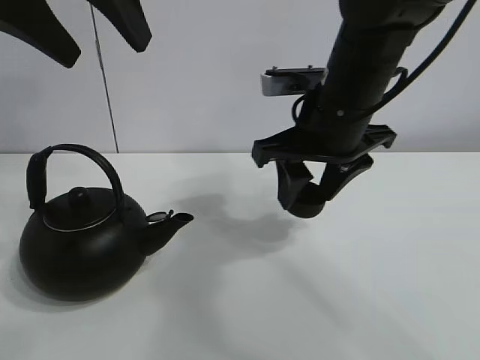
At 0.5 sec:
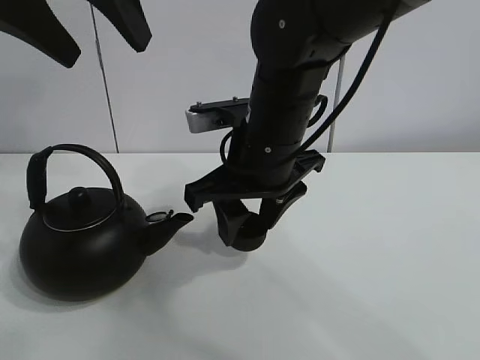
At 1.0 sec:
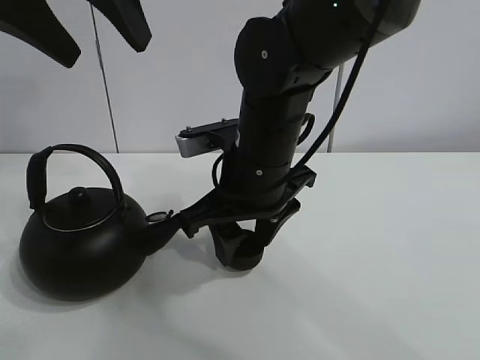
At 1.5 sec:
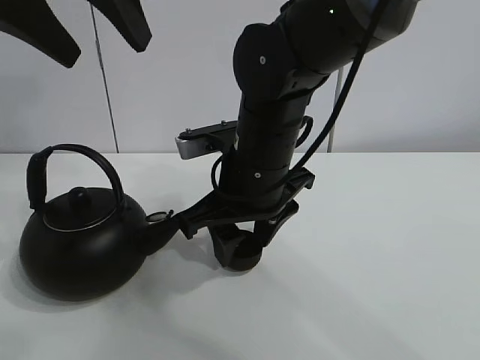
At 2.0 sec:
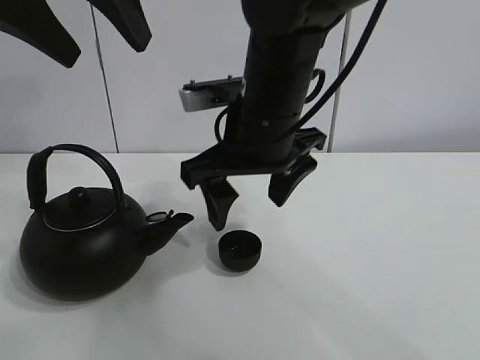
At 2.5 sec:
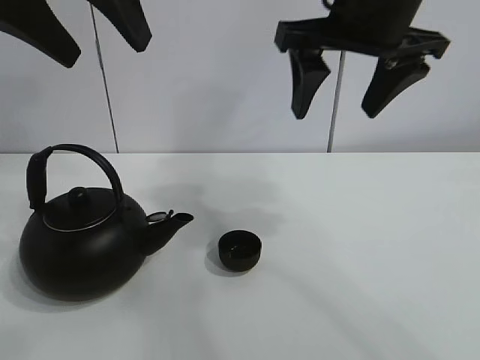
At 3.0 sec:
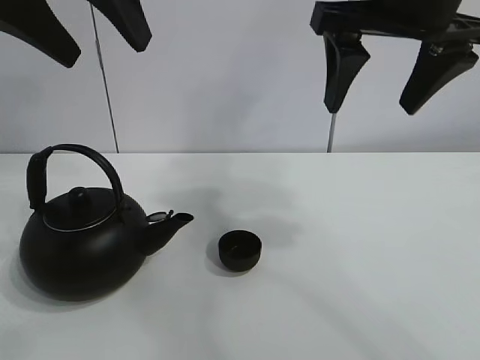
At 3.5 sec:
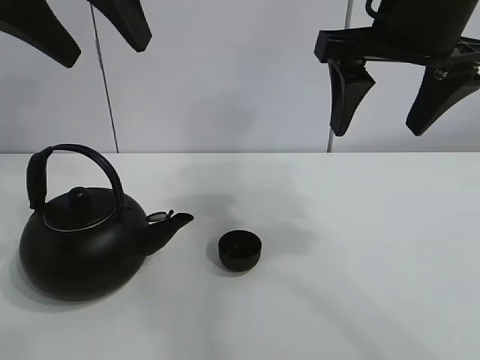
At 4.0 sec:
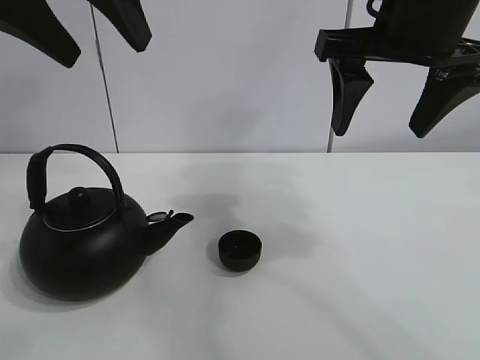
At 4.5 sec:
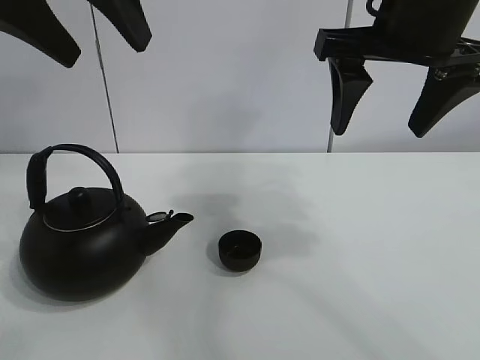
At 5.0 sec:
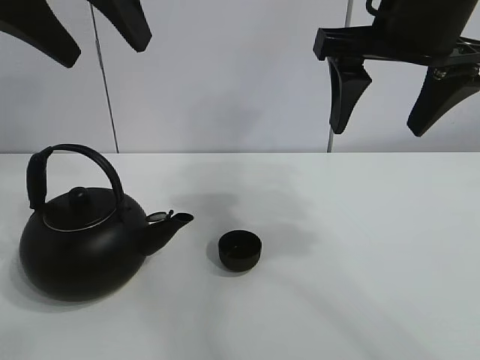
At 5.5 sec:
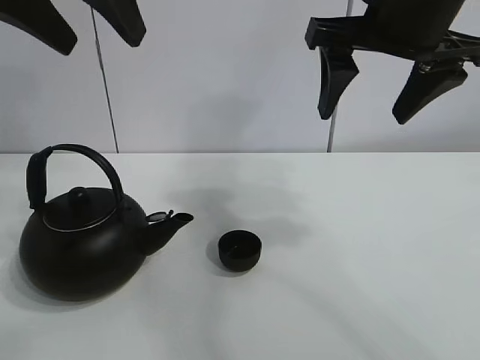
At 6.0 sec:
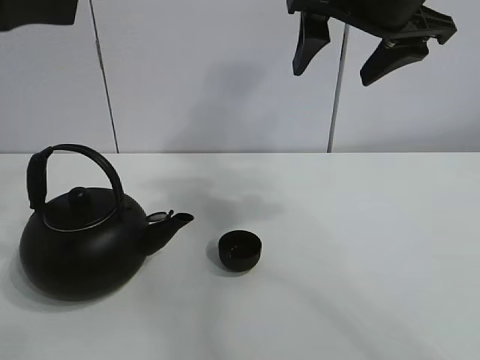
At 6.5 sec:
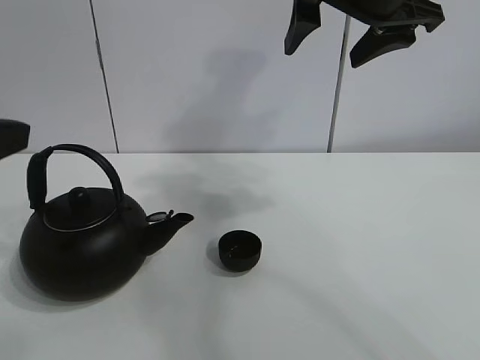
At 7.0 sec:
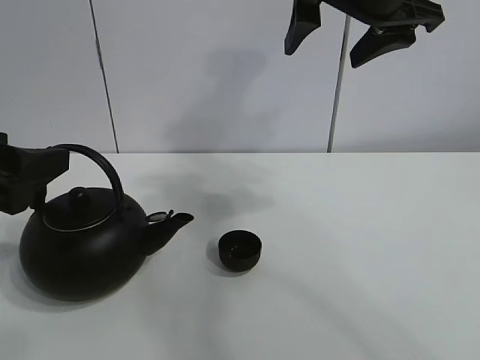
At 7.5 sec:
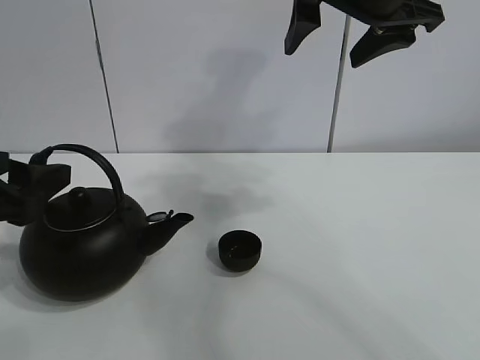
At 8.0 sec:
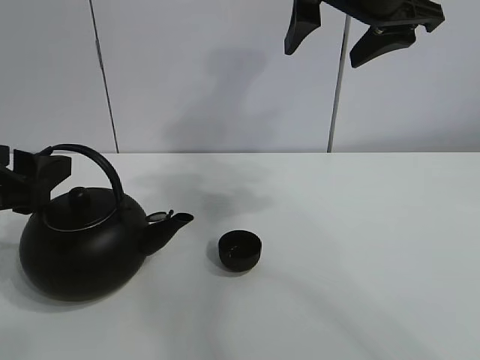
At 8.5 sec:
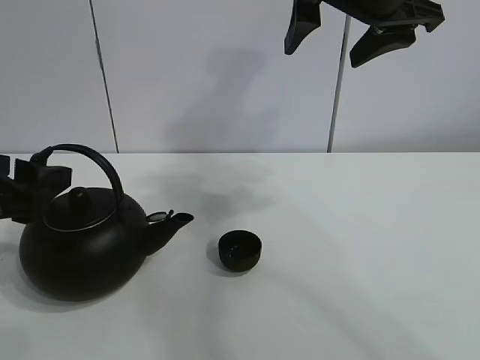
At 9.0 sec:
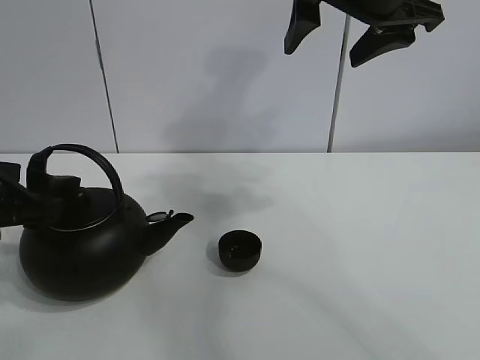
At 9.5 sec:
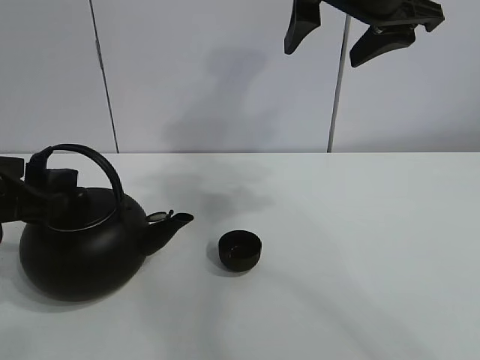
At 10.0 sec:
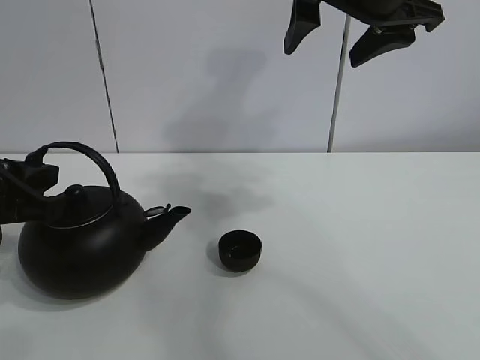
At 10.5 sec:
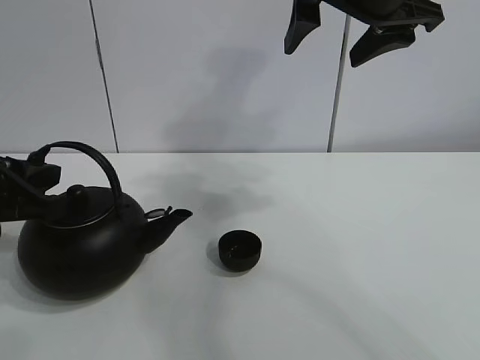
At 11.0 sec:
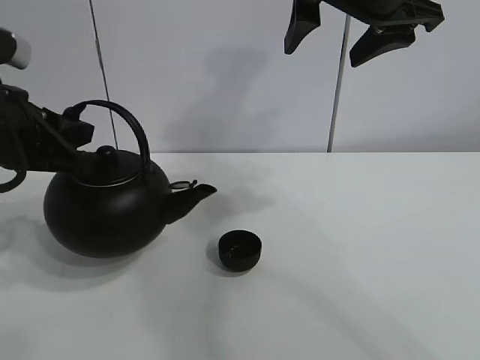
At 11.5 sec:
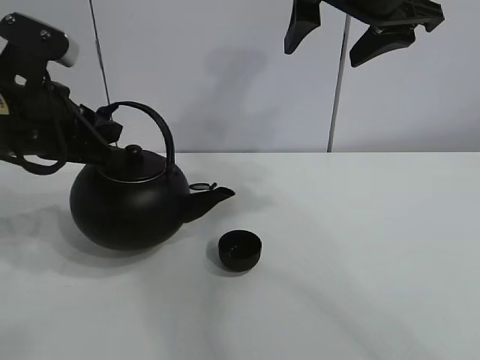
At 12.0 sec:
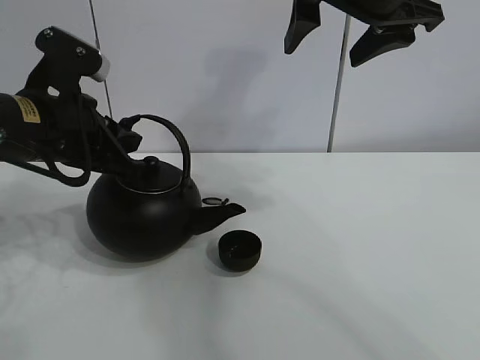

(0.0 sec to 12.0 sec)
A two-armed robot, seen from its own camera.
Task of the whole recording: pour tea into the teacup.
Step, 0.0 sec - 1.5 sec: Place the teacup in the center of view with the right gripper.
Step, 2.0 sec - 10.0 sec: Pick up the teapot with the left gripper.
0.0 sec - 2.0 sec: The right gripper is displaced to the left by about 10 cm, and opens up.
2.0 sec - 4.0 sec: The right gripper is displaced to the right and upward by roughly 15 cm.
4.0 sec - 6.0 sec: The left gripper is displaced backward and to the left by approximately 10 cm.
6.0 sec - 8.0 sec: The left gripper heads downward, covering roughly 15 cm.
8.0 sec - 10.0 sec: The left gripper closes.
10.0 sec - 12.0 sec: The left gripper moves forward and to the right, some 10 cm.

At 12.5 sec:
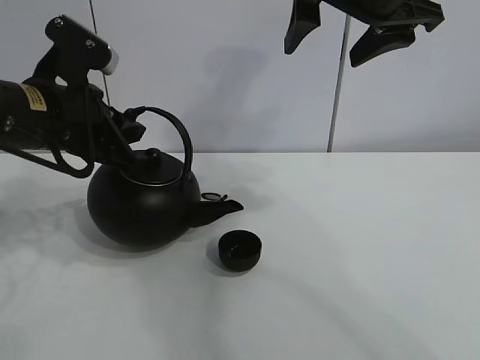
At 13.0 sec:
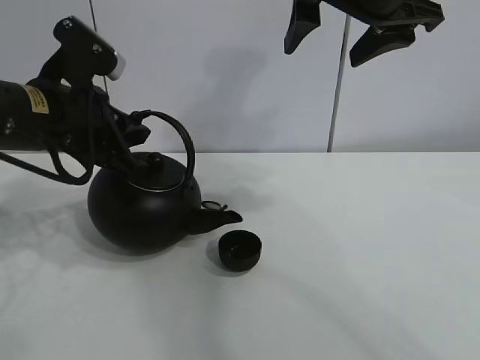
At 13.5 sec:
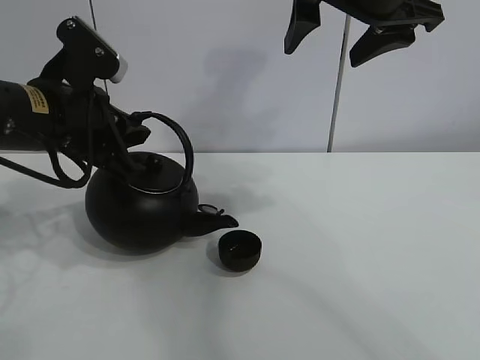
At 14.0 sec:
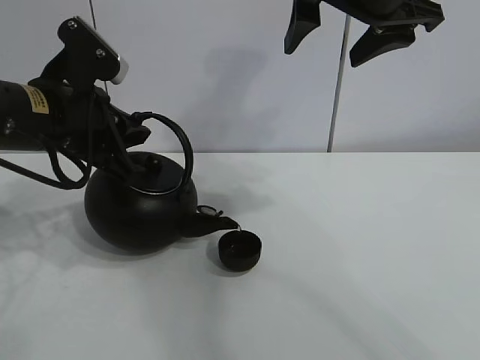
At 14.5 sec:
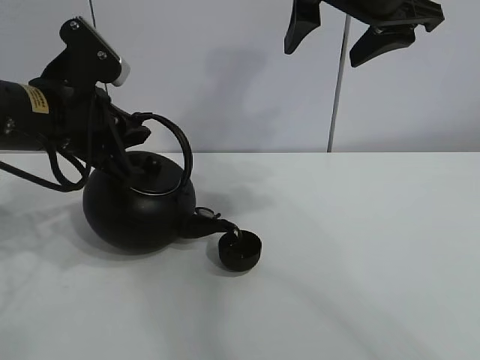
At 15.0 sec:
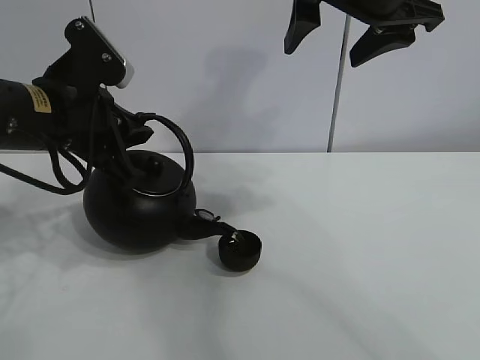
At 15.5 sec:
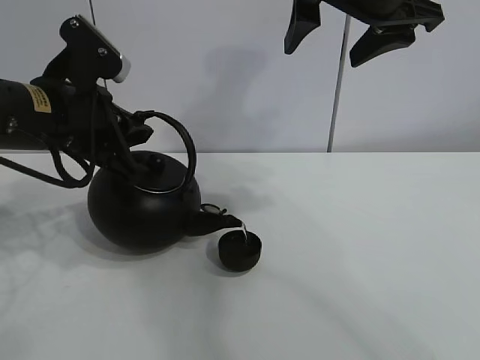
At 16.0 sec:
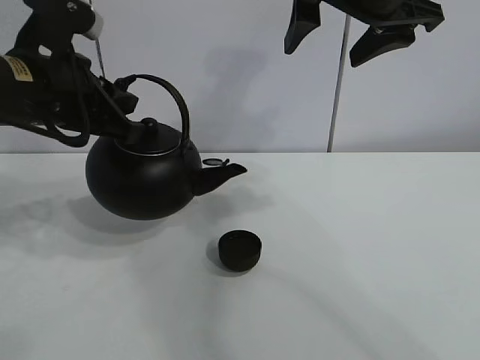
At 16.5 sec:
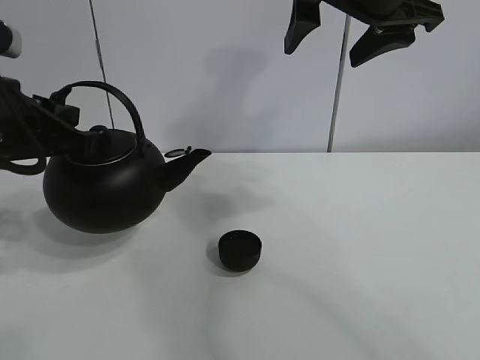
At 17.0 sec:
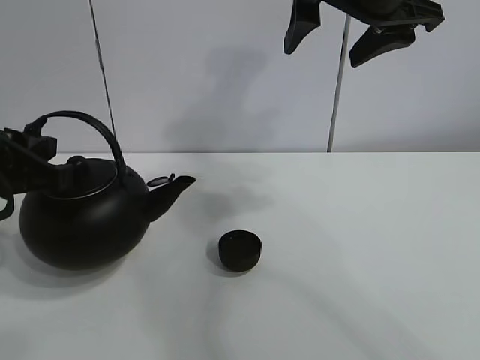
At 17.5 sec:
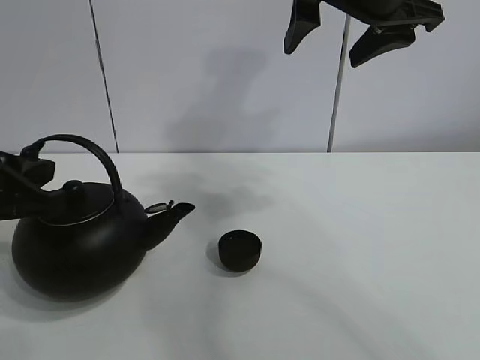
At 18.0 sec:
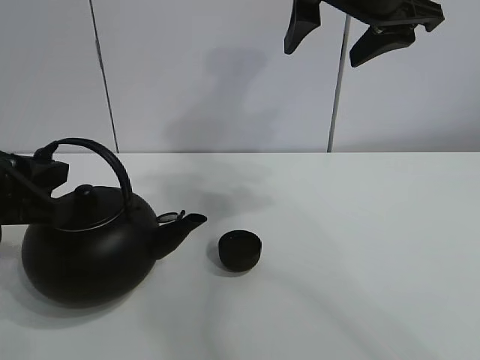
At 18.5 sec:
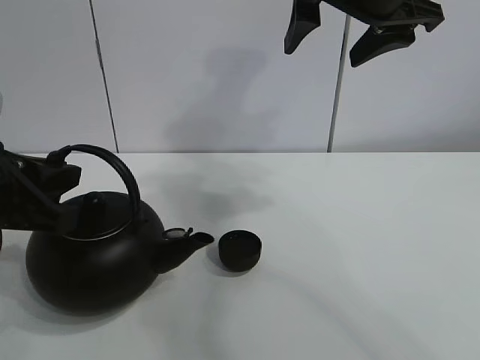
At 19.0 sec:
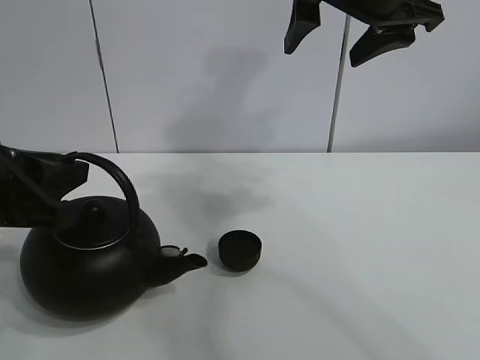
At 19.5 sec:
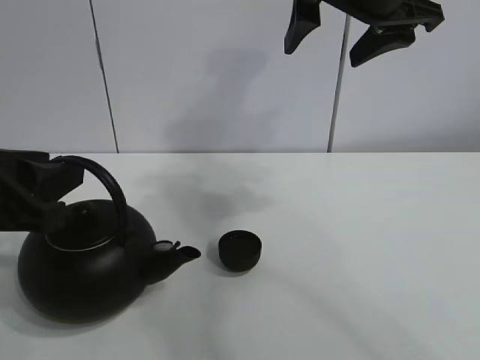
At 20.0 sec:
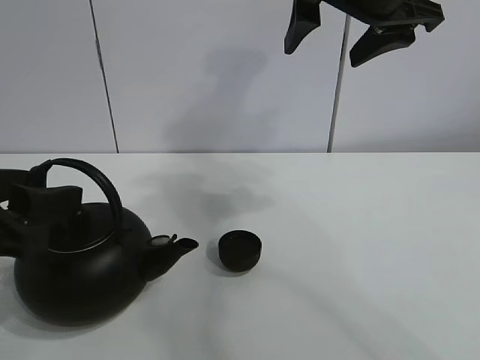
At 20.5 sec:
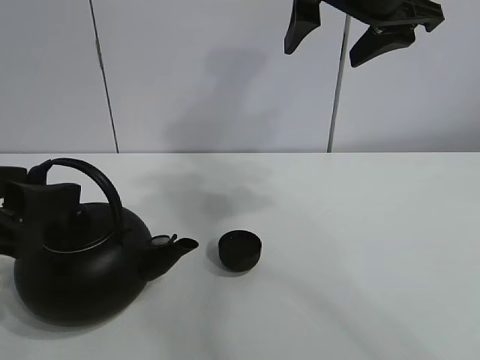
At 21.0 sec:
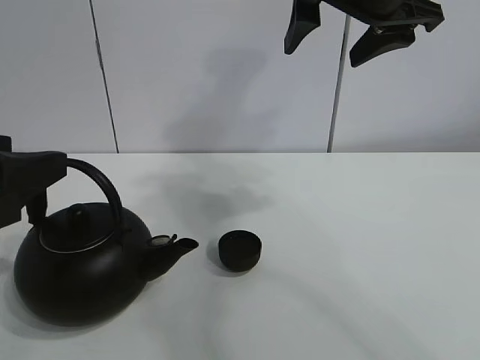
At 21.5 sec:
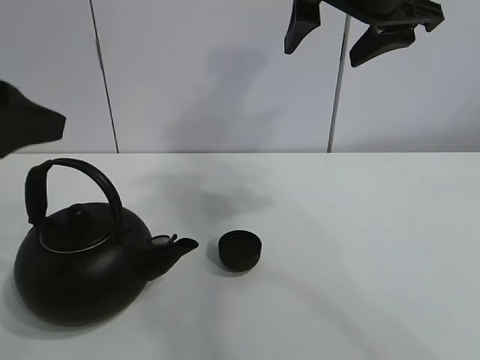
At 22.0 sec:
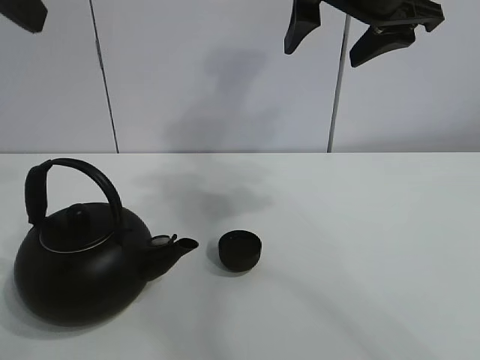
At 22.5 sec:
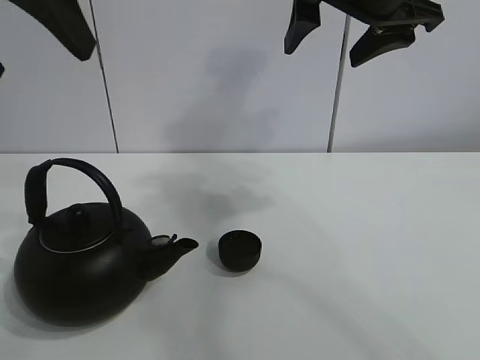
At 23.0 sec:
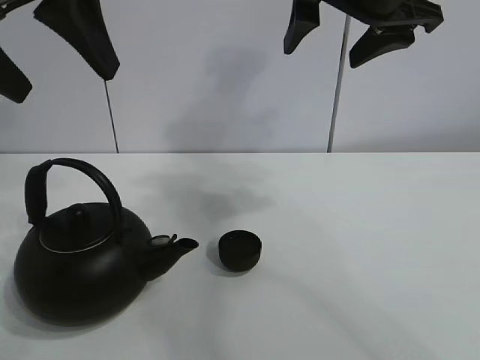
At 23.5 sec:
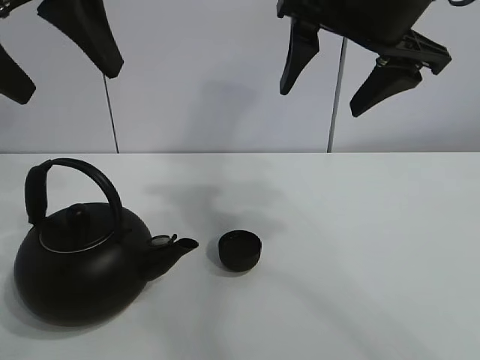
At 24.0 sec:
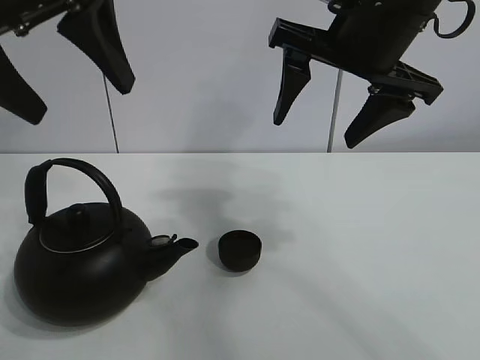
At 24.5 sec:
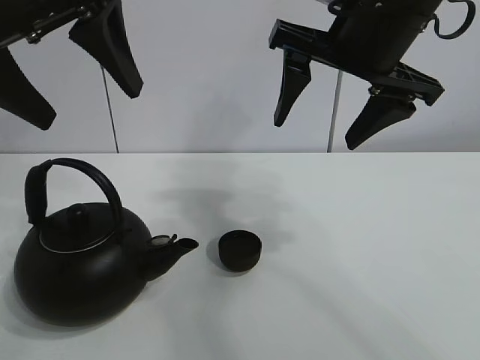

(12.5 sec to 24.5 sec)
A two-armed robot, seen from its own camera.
Task of the whole recording: pour tea into the teacup.
Step, 12.5 sec - 15.5 sec: Pour tea into the teacup with the left gripper.
12.5 sec - 14.5 sec: The grippers make only small movements.
14.5 sec - 16.5 sec: The left gripper moves approximately 5 cm.
16.5 sec - 18.5 sec: The left gripper travels backward by roughly 5 cm.
18.5 sec - 20.5 sec: The left gripper opens.
20.5 sec - 22.5 sec: The left gripper moves upward, some 20 cm.
22.5 sec - 24.5 sec: The left gripper changes place by roughly 5 cm.
